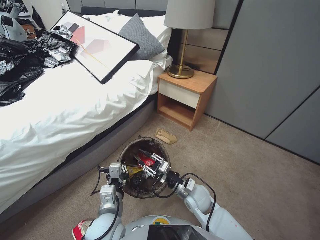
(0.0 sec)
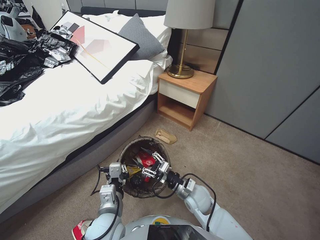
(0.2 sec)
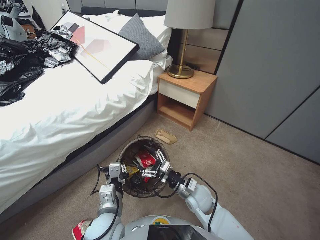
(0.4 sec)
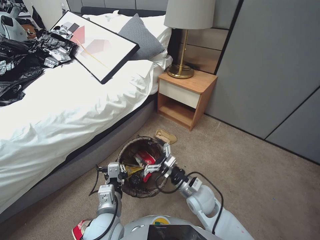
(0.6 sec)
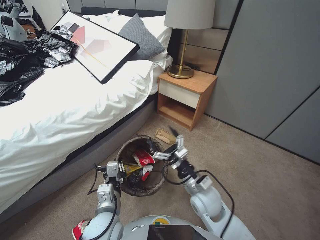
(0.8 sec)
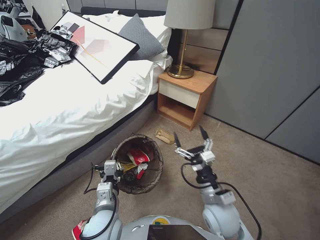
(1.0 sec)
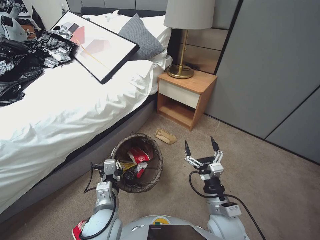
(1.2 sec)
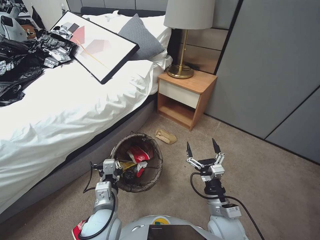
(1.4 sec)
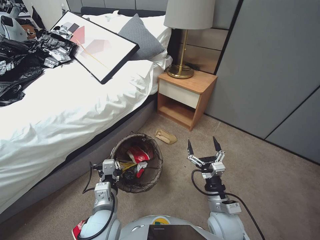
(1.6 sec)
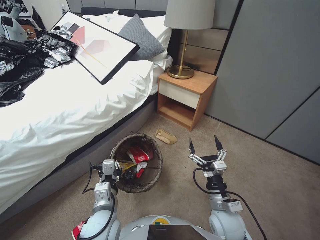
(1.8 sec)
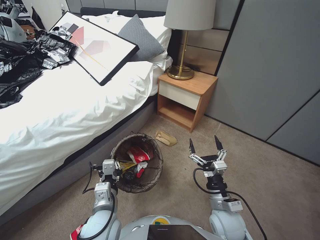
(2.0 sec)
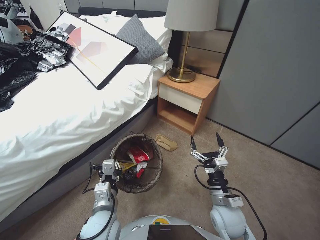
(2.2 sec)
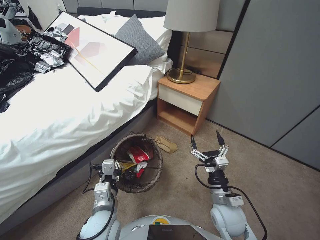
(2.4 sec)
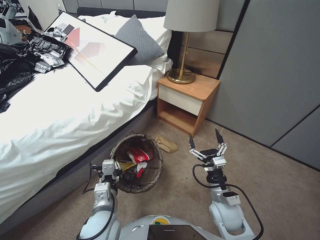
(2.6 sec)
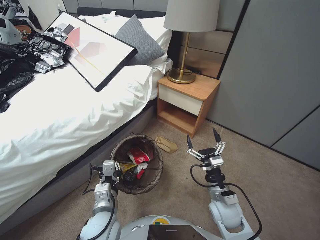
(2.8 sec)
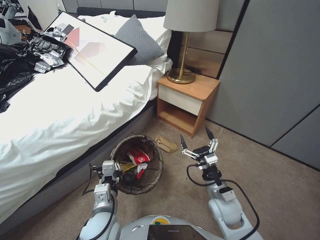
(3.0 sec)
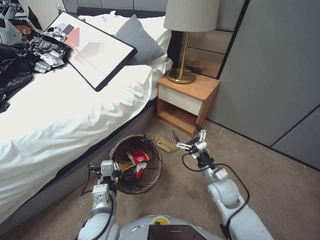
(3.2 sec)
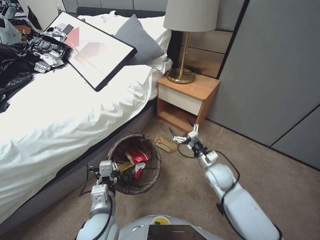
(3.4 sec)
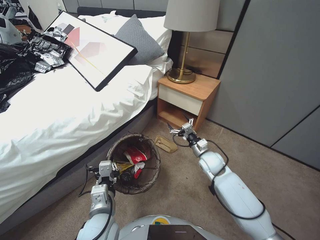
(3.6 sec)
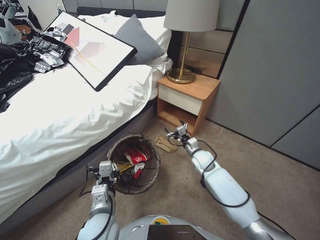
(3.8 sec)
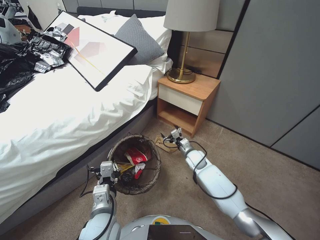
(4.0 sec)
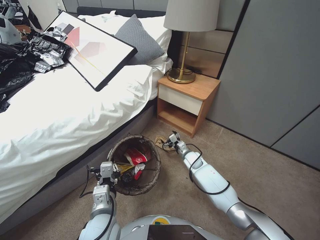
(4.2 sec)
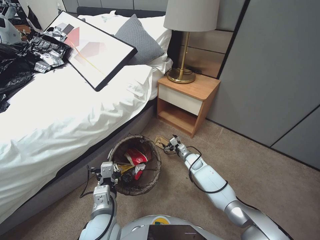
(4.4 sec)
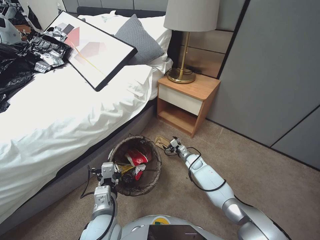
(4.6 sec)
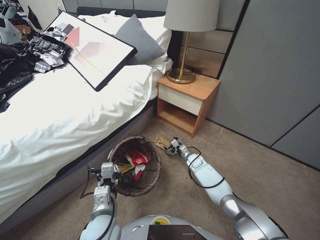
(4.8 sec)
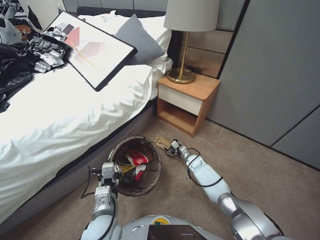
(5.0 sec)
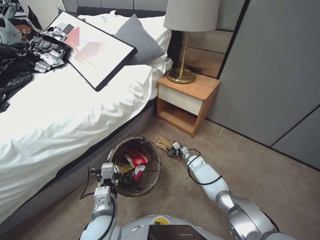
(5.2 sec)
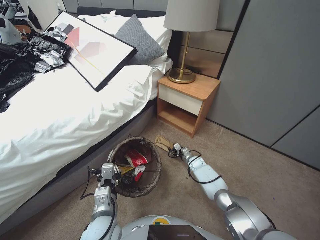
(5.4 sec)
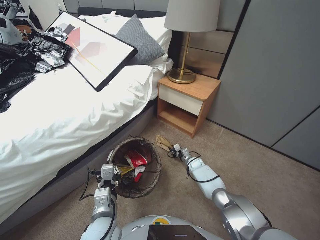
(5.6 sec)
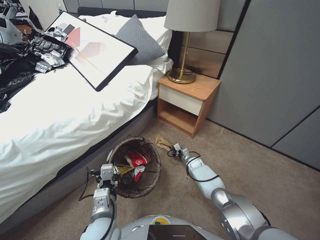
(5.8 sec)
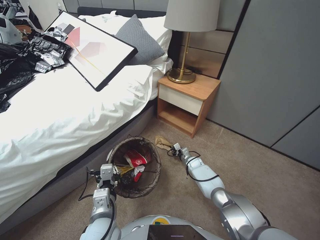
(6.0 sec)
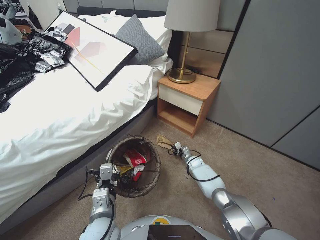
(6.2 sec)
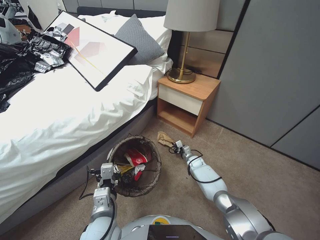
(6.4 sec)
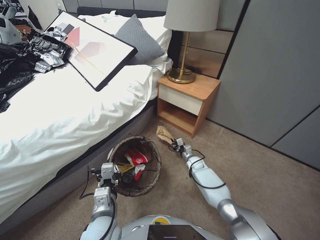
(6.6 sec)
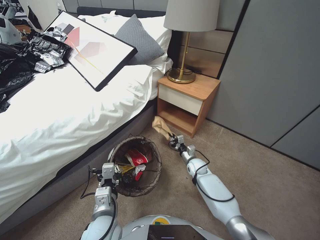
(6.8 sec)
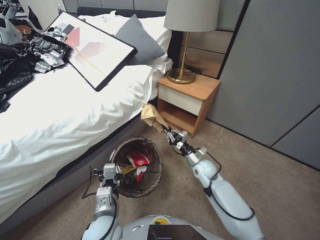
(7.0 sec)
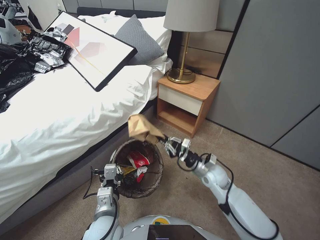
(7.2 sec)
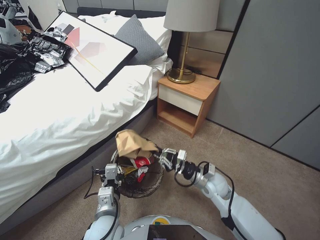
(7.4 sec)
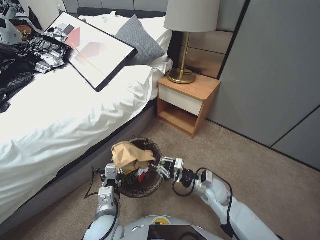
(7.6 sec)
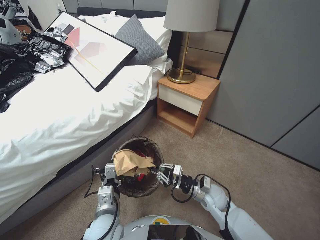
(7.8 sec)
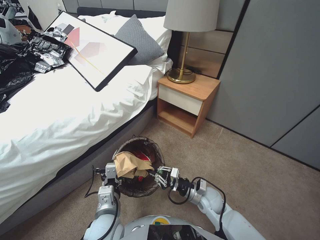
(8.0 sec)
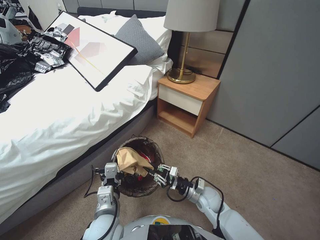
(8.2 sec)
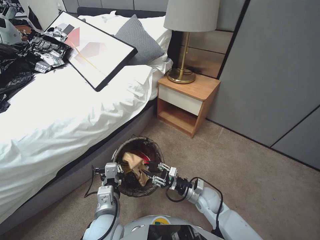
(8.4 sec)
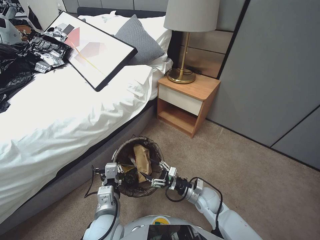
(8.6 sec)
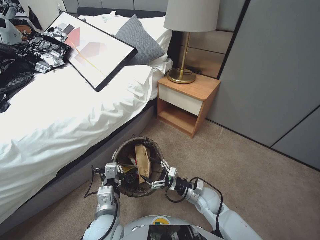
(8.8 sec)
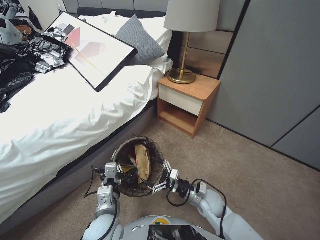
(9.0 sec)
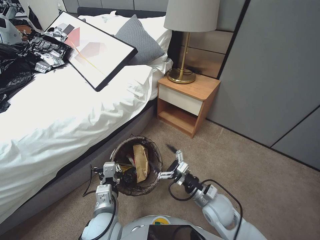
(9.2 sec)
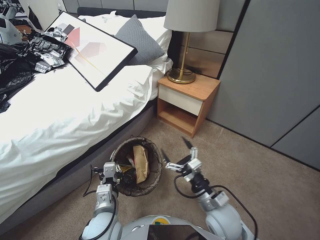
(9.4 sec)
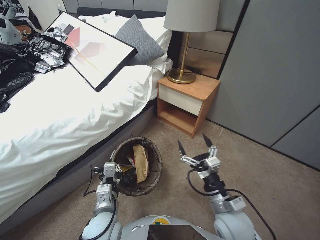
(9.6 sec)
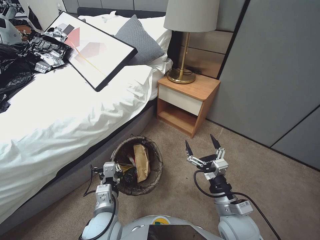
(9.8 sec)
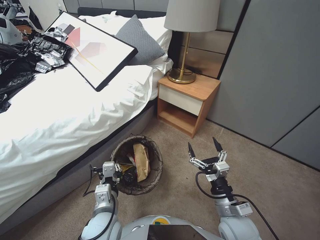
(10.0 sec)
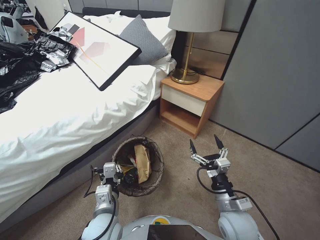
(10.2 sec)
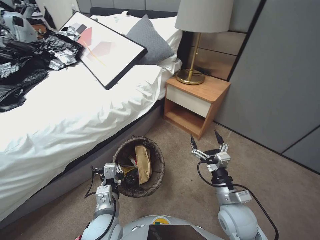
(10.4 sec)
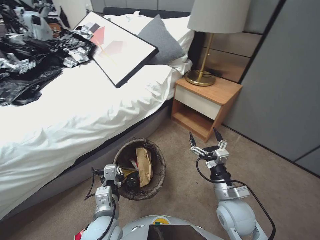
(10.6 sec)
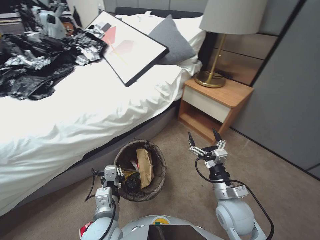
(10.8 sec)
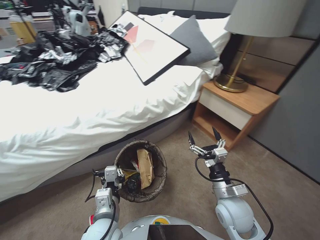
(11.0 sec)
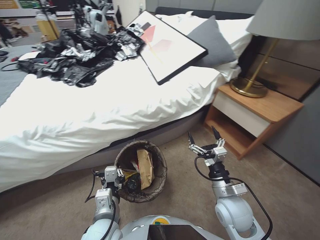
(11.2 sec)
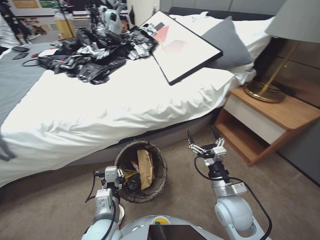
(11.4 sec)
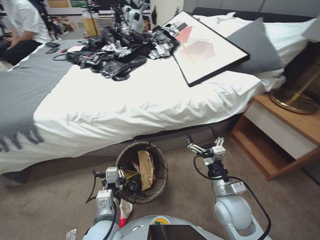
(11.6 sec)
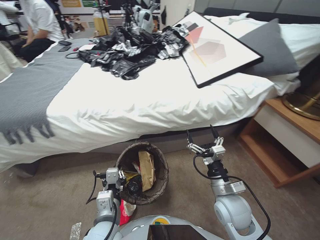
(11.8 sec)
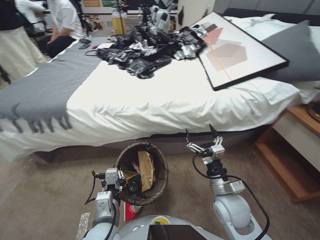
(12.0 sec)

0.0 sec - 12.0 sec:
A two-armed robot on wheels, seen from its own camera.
Task of the whole recording: Pick up the trash bin, then pick up the garbage from the floor and place it into the trash bin.
0.0 sec - 1.6 sec: The right gripper travels backward and to the right by approximately 10 cm, and opens.
1.6 sec - 3.0 sec: The right gripper shifts approximately 5 cm forward.
3.0 sec - 4.4 sec: The right gripper goes approximately 25 cm forward and downward.
4.4 sec - 6.0 sec: The right gripper is displaced downward by roughly 10 cm, and closes up.
6.0 sec - 7.6 sec: The right gripper goes about 25 cm upward and backward.
7.6 sec - 9.0 sec: The right gripper moves downward, some 5 cm, and opens up.
9.0 sec - 10.4 sec: The right gripper goes about 15 cm upward and backward.

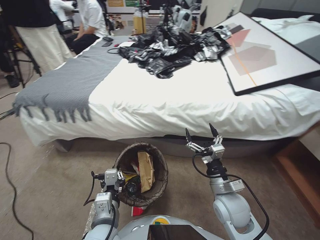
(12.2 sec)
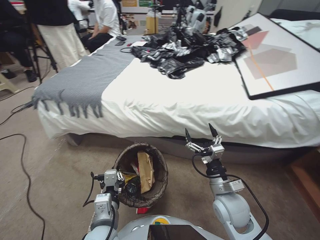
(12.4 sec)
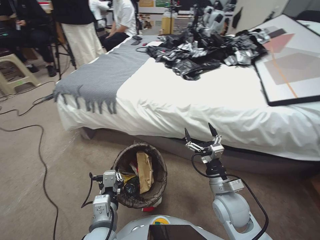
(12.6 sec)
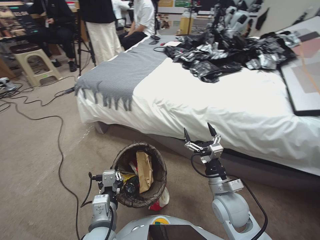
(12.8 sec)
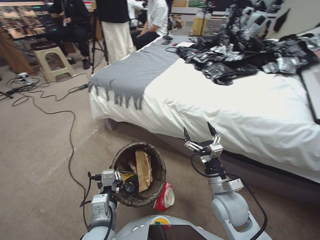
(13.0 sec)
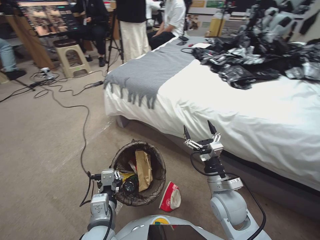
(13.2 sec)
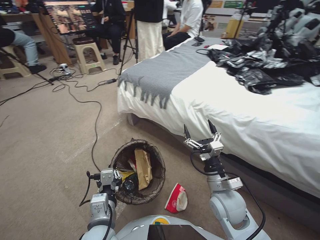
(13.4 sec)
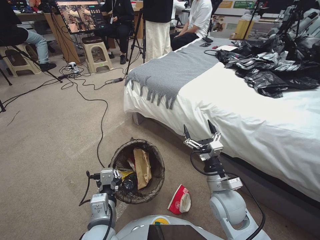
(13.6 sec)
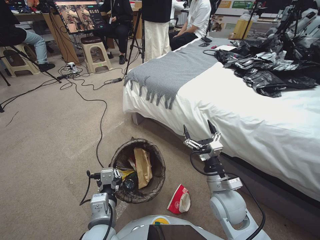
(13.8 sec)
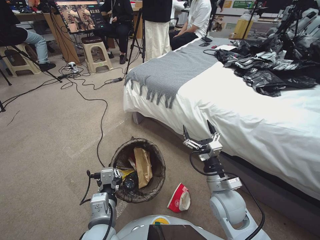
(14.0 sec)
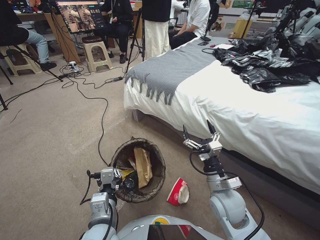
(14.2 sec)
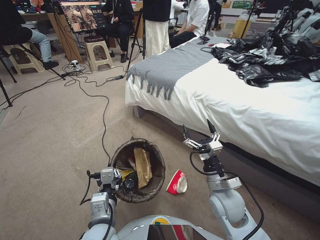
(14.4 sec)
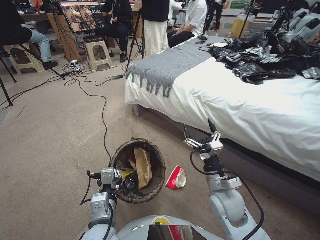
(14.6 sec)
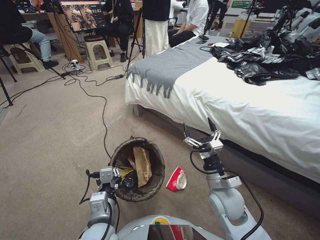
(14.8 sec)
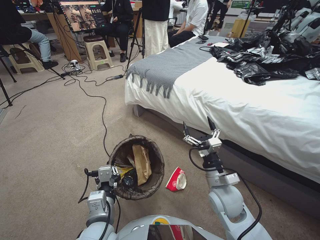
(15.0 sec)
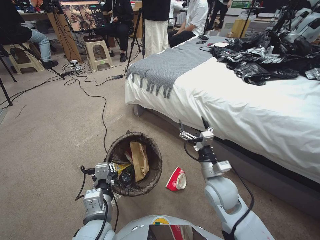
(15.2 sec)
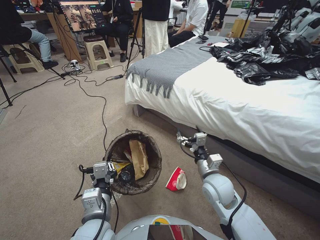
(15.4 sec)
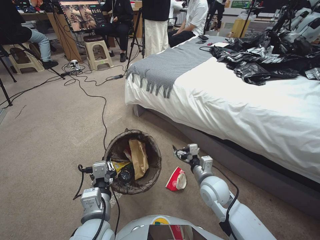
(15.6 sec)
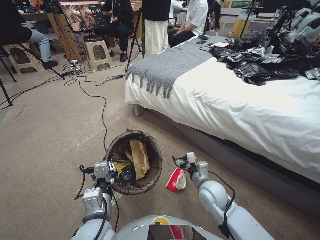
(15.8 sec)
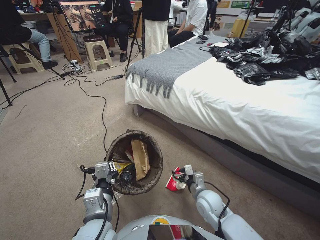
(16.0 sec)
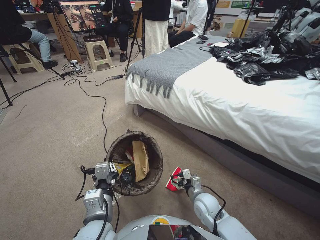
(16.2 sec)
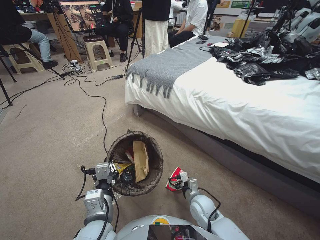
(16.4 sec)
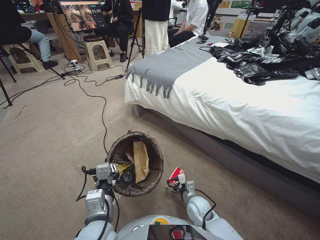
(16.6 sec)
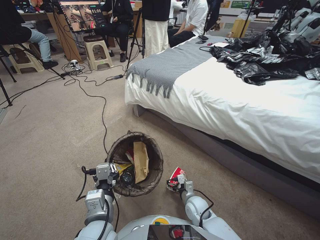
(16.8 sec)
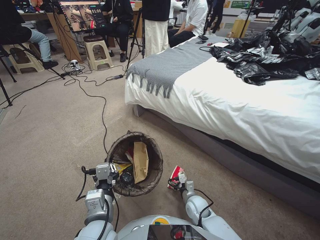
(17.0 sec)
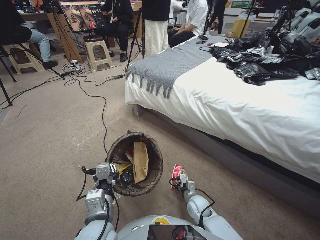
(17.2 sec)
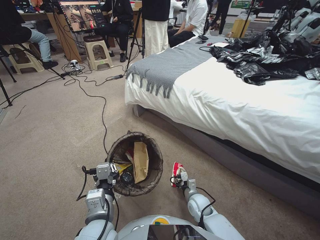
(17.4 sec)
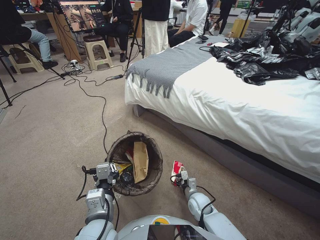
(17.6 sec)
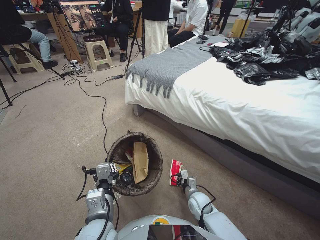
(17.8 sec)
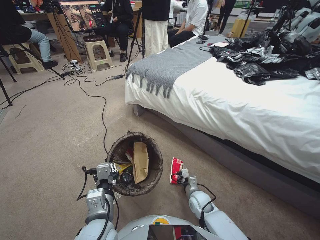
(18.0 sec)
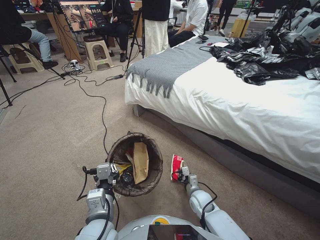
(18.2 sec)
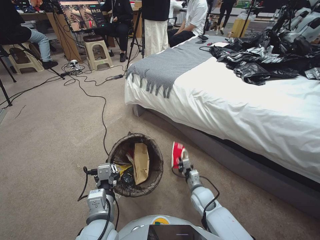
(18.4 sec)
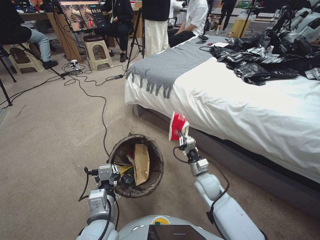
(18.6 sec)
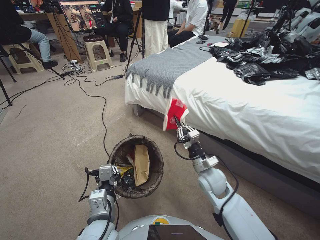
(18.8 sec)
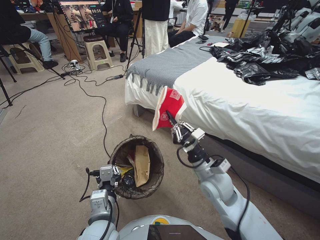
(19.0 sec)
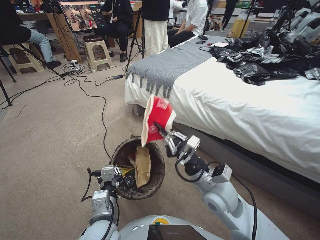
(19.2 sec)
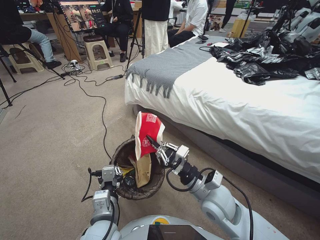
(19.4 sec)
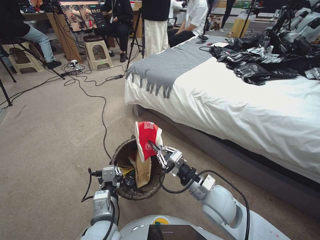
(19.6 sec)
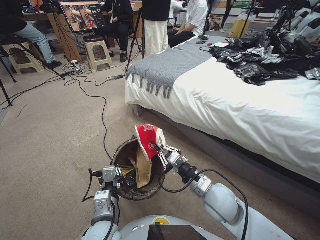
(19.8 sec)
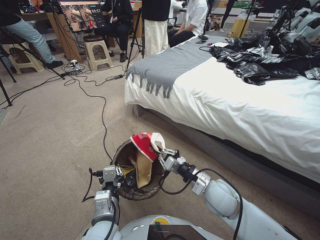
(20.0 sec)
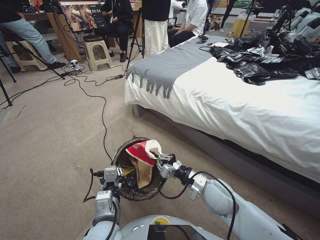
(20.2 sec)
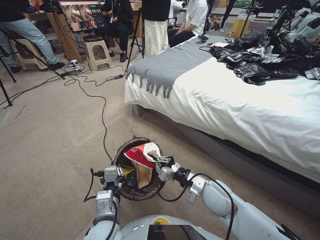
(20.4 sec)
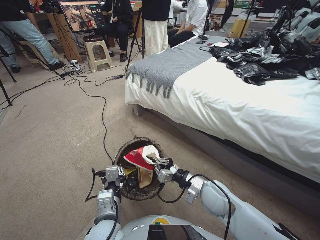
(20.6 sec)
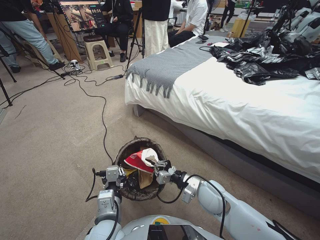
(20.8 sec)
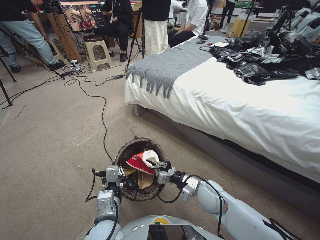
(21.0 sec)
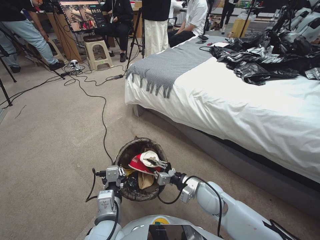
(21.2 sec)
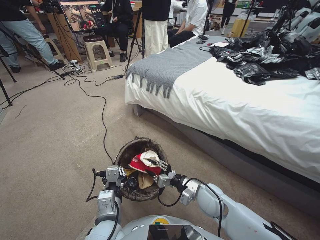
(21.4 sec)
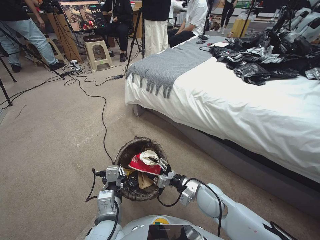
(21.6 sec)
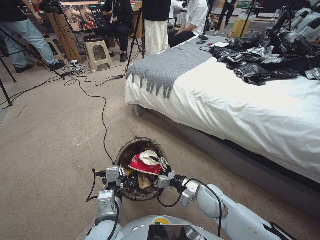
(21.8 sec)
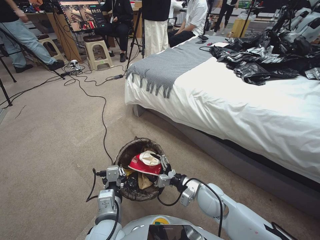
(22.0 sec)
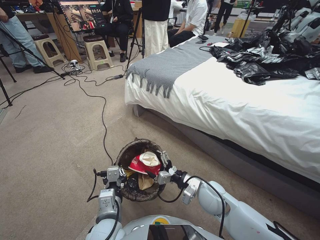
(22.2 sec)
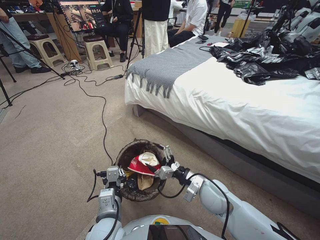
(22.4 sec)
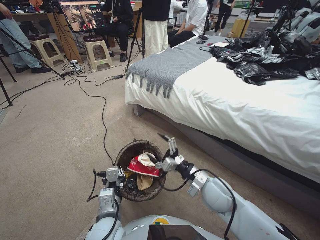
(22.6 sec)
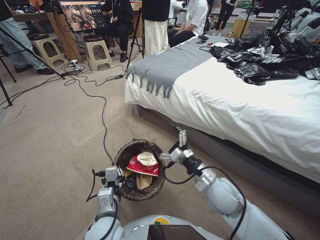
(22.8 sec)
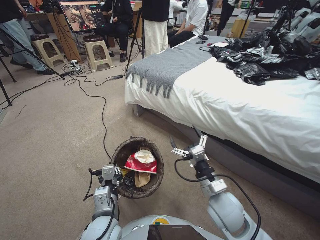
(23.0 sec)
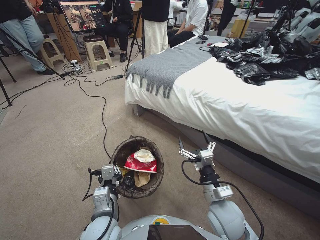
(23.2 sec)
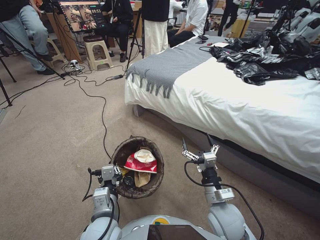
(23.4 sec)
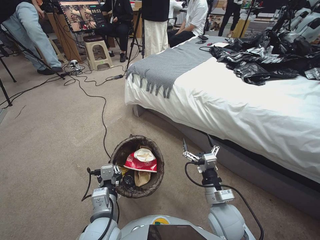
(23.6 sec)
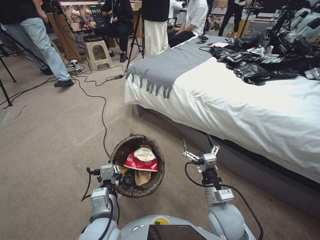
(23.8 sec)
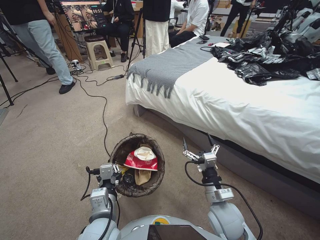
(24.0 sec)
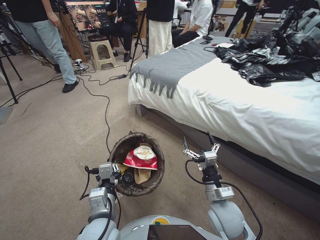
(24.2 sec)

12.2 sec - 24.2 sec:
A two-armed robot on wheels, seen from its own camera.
Task of the whole recording: Pick up the trash bin, then pick up the garbage from the floor and place it into the trash bin.
15.2 sec - 16.6 sec: The right gripper is displaced downward by approximately 15 cm.
16.6 sec - 18.2 sec: The right gripper shifts approximately 5 cm downward, and closes its fingers.
18.2 sec - 19.8 sec: The right gripper shifts some 25 cm upward.
19.8 sec - 21.2 sec: The right gripper heads downward, covering some 5 cm.
21.2 sec - 22.6 sec: The right gripper opens.
22.6 sec - 24.2 sec: The right gripper goes about 5 cm backward.
